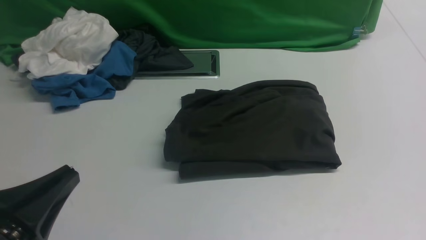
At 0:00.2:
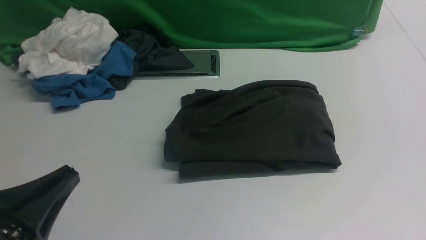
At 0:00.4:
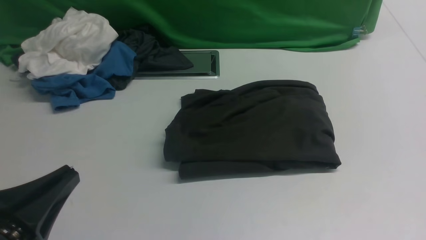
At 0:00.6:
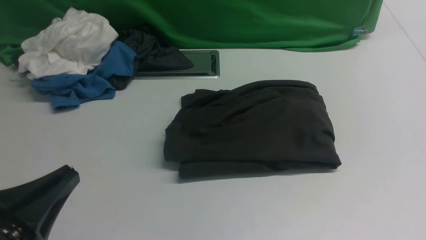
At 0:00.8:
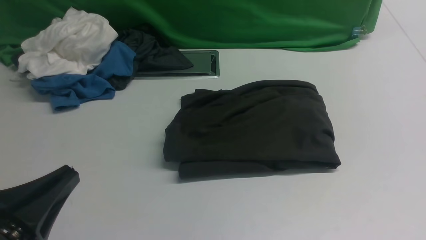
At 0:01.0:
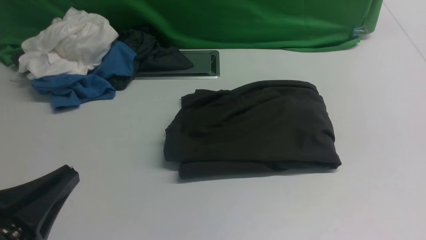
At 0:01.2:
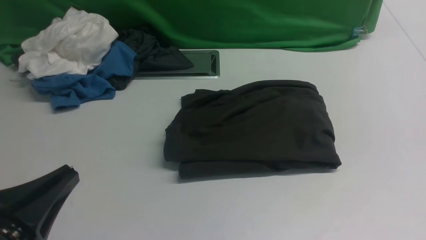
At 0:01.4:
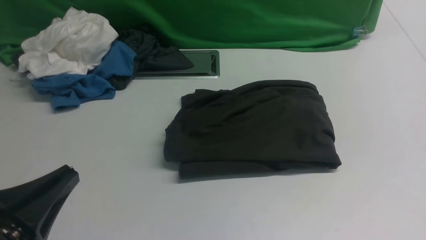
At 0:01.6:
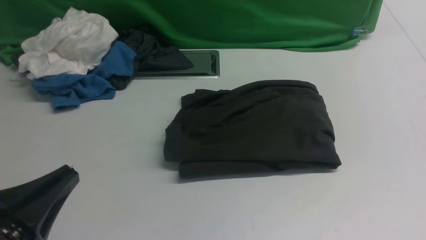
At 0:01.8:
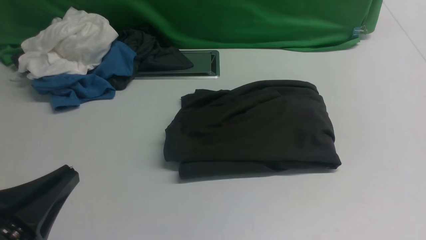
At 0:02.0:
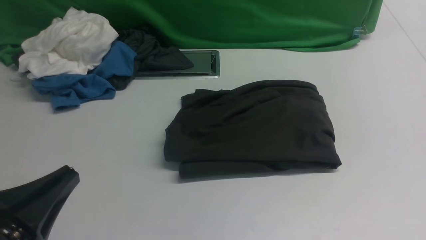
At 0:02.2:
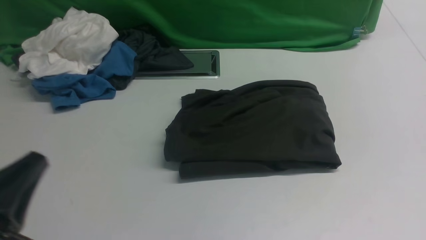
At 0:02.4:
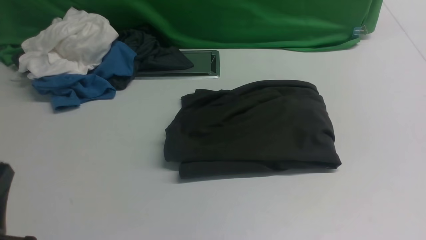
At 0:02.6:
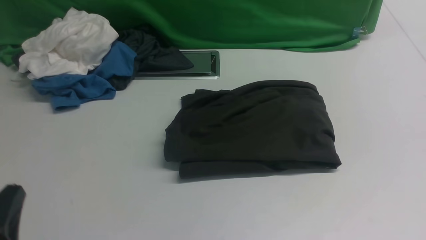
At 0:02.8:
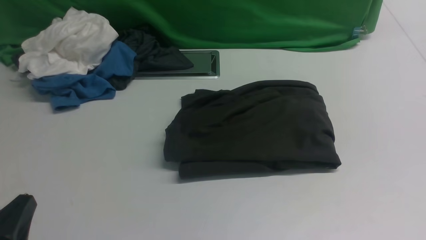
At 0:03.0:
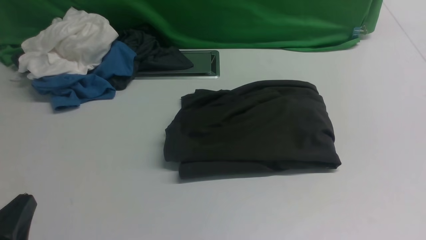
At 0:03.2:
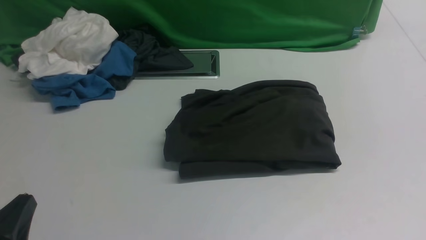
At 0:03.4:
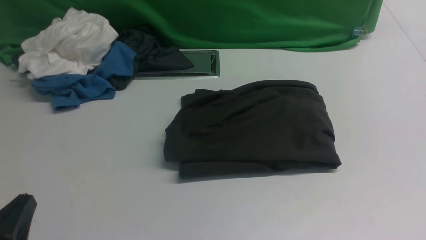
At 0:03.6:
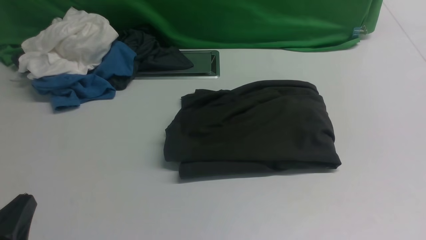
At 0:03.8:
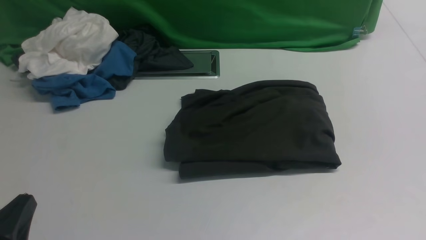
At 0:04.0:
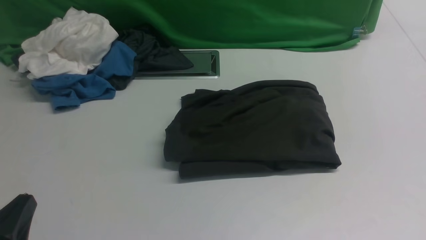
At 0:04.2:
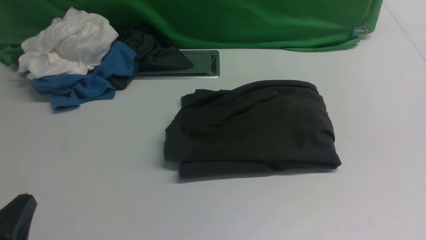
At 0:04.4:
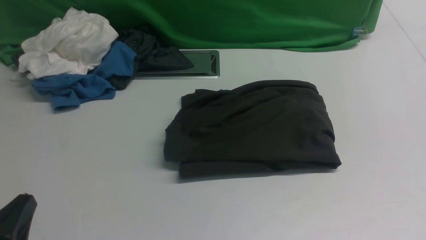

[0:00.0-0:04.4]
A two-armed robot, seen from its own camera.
0:01.4 to 0:03.0: The left gripper heads downward, covering about 5 cm.
0:03.0 to 0:04.4: The two grippers keep their place.

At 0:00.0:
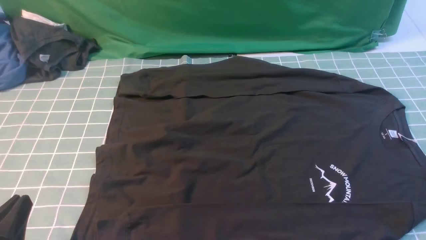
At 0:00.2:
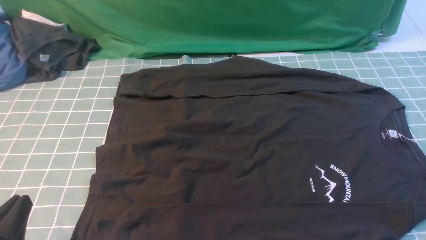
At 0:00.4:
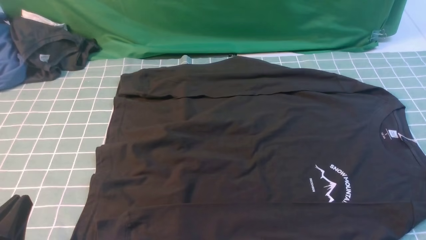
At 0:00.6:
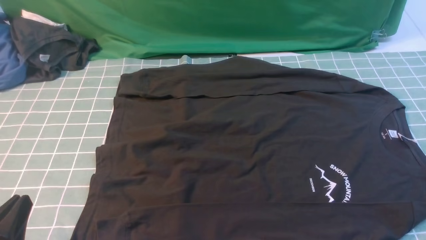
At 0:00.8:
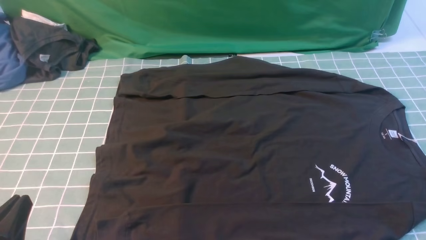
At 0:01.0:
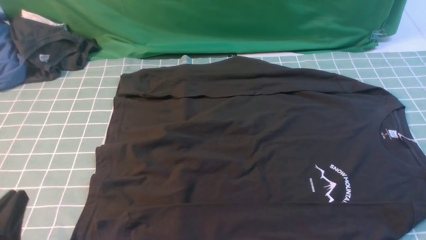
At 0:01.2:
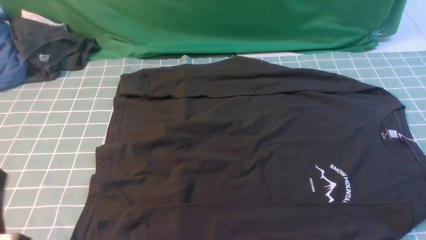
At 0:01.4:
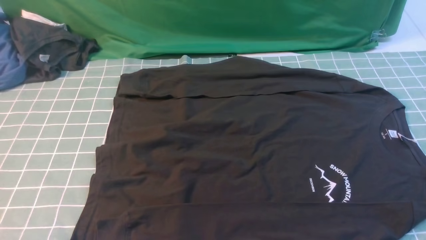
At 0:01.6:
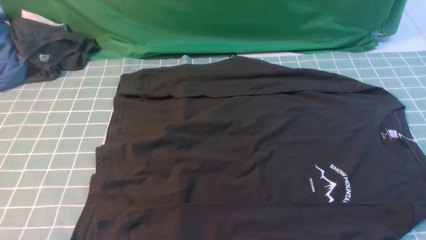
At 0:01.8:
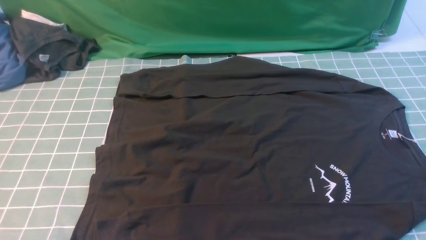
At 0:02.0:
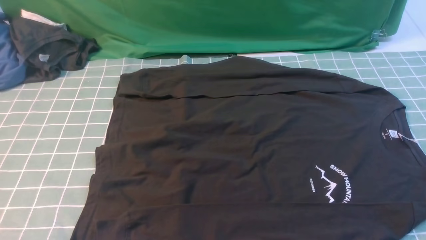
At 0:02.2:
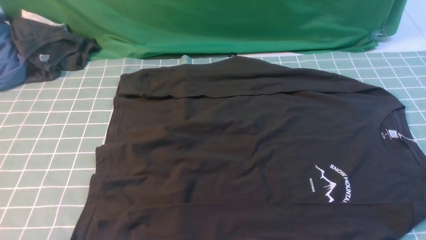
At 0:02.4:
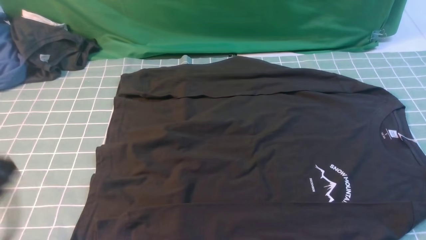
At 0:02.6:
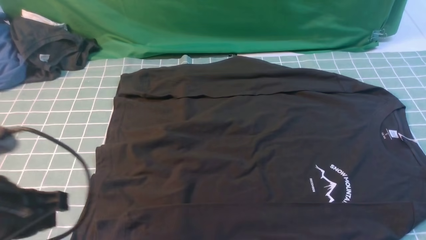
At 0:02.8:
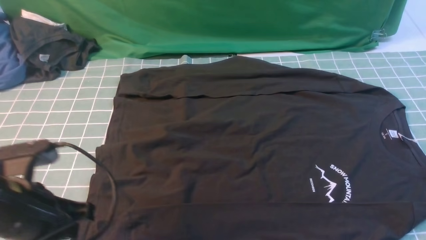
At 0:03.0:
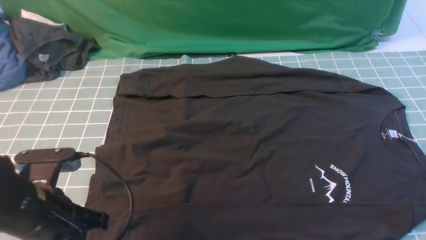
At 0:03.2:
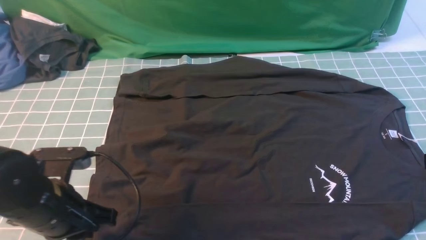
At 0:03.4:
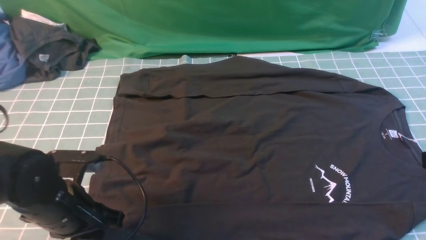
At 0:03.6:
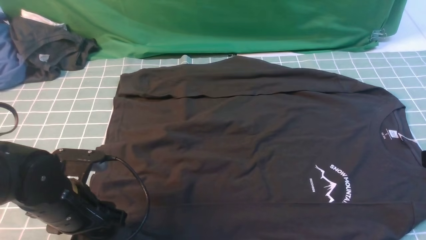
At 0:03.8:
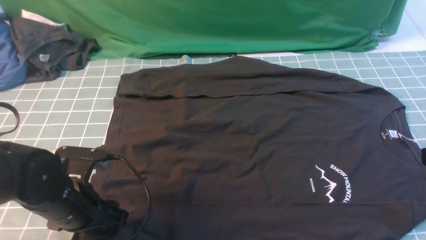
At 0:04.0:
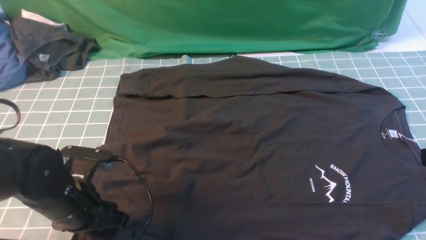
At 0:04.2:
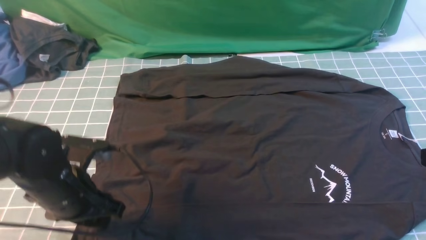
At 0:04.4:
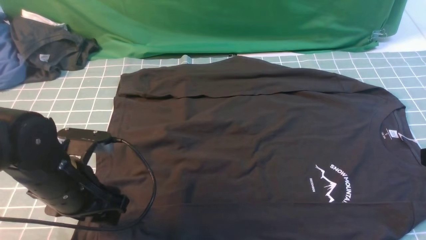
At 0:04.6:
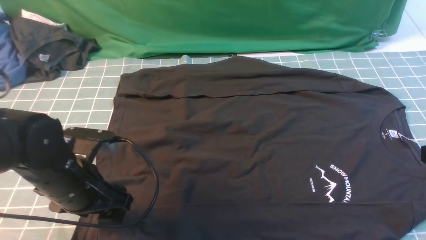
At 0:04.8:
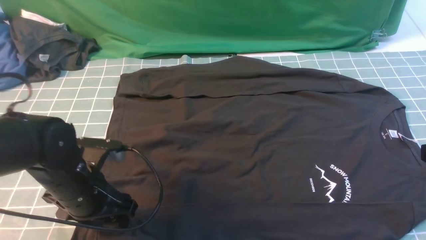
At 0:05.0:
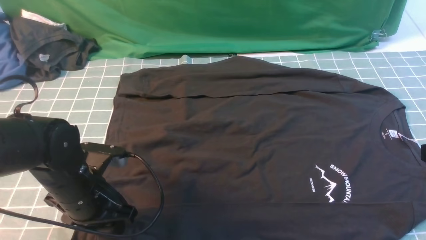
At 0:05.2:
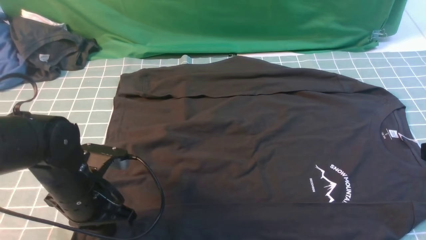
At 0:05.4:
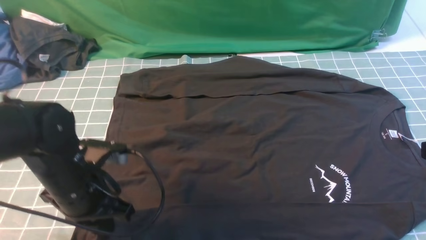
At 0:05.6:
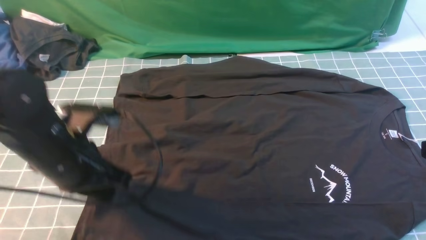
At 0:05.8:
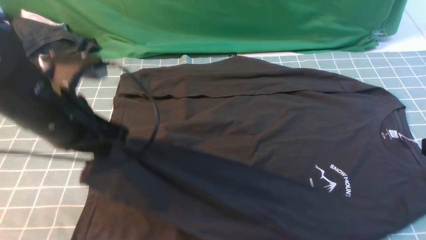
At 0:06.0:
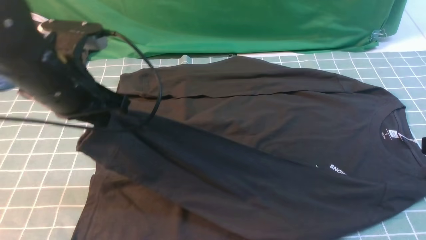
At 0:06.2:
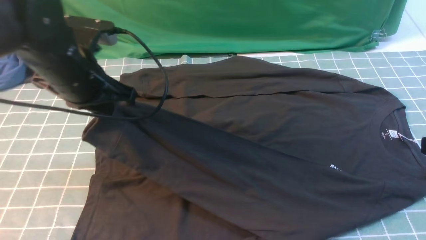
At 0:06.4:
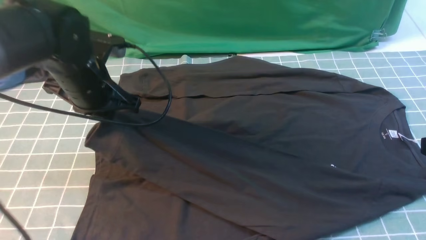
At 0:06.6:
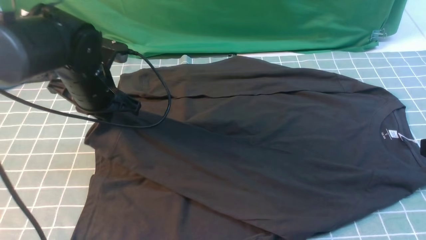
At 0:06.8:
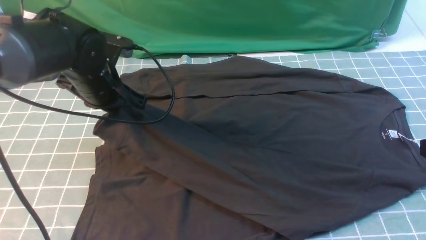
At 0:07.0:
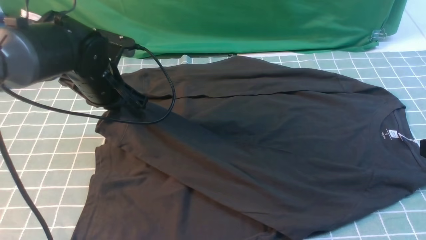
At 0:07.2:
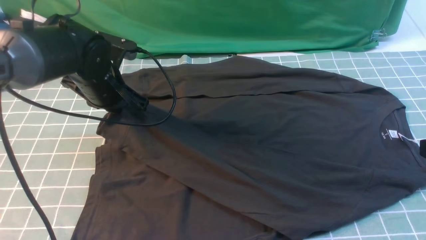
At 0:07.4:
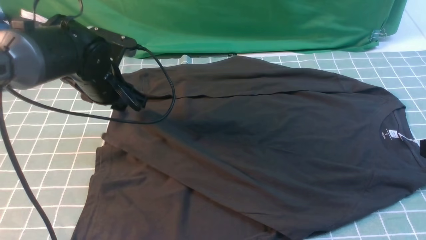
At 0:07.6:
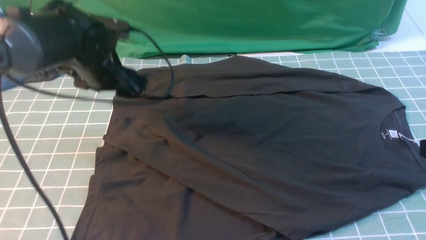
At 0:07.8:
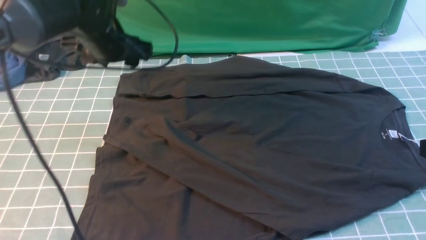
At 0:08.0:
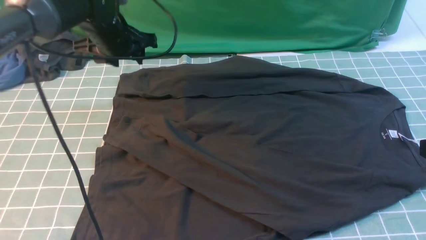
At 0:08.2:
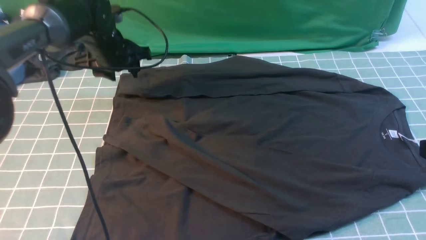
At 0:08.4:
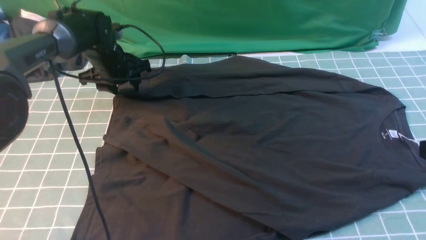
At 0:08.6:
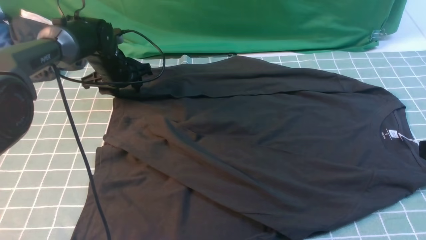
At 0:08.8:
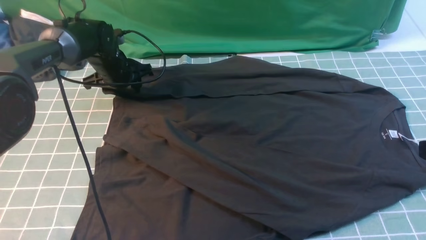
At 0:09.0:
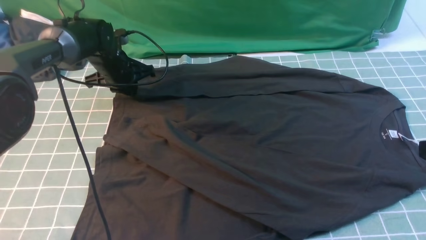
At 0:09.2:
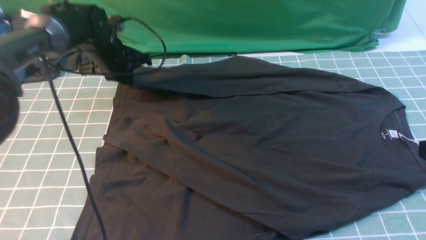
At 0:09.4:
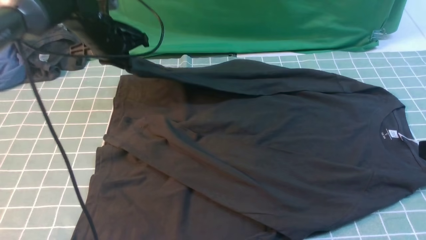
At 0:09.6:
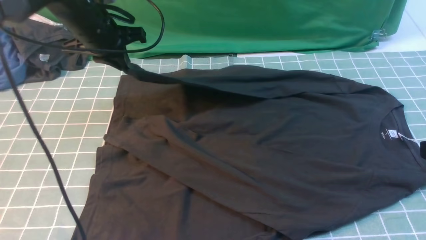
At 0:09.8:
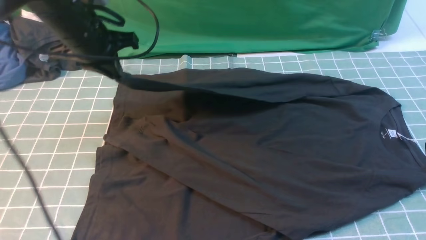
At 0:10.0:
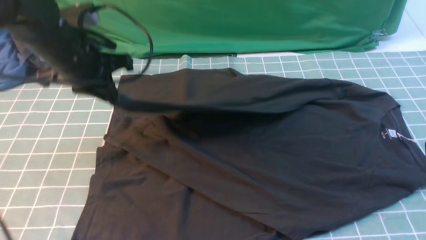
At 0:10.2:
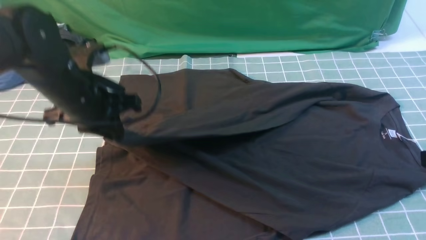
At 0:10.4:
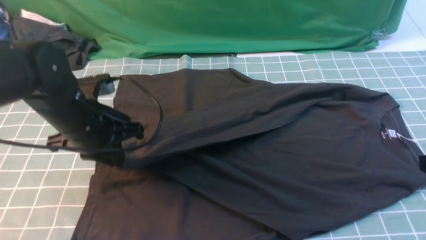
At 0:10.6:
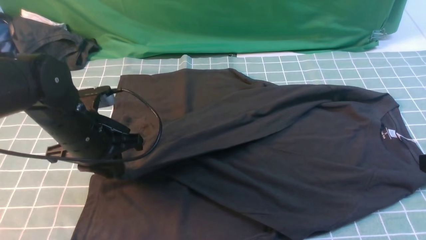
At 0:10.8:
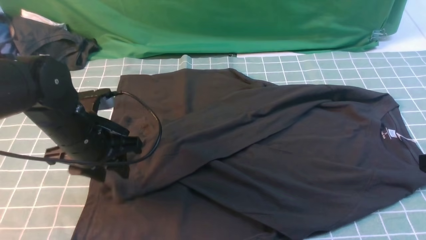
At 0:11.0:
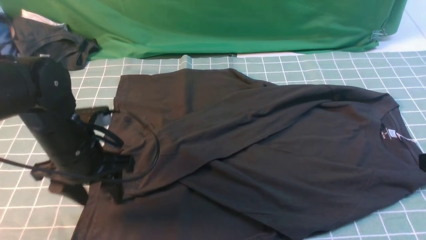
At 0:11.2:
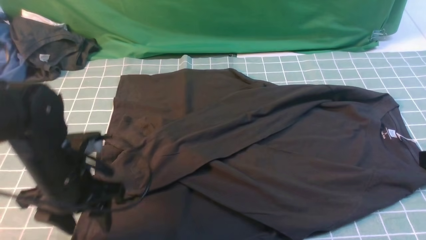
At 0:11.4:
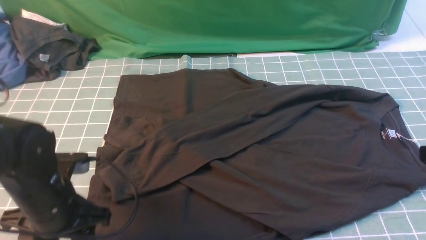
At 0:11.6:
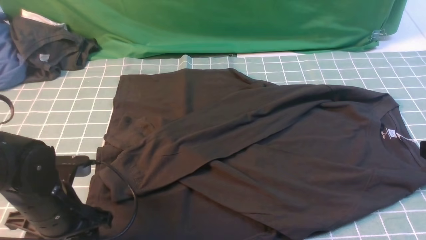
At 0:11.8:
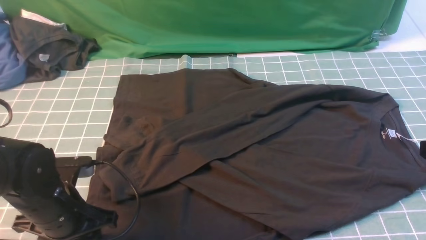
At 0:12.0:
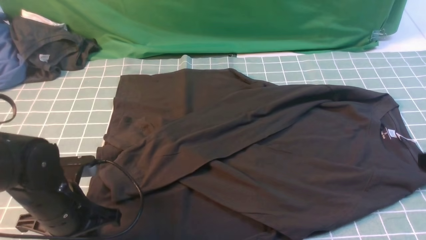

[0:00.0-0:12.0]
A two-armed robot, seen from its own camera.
Step, 0:00.0 to 0:05.2: use the left arm to clamp the cuff closest to it.
Step, 0:05.4 to 0:07.4: use the left arm to drag and place the cuff at the centered position on the left edge of the fabric.
Step, 0:07.6 to 0:09.0: use the left arm to clamp the cuff farthest from it.
Step, 0:09.4 to 0:11.0: use the left arm to drag and drop the cuff onto the cuff closest to the left arm.
0:01.6 to 0:03.0: The left gripper shifts about 10 cm forward.
0:03.0 to 0:04.4: The left gripper shifts by about 5 cm, and opens.
0:04.4 to 0:06.0: The left gripper shifts roughly 15 cm upward and forward, and closes.
0:06.0 to 0:07.6: The left gripper is displaced forward by roughly 10 cm, and opens.
0:07.6 to 0:09.0: The left gripper is displaced forward and downward by approximately 10 cm, and closes.
0:09.0 to 0:10.4: The left gripper moves backward, roughly 20 cm.
0:10.4 to 0:12.0: The left gripper shifts about 10 cm backward and downward, and opens, then closes again.
